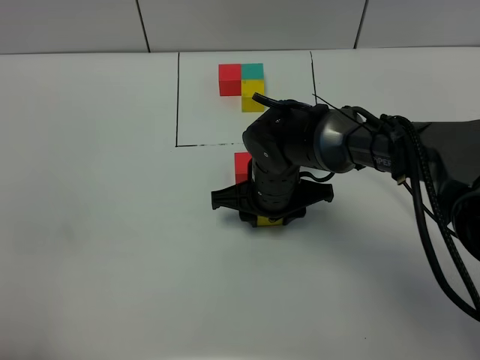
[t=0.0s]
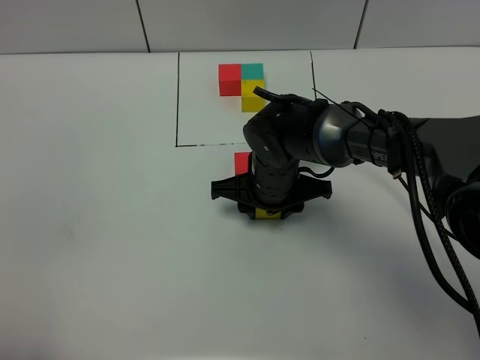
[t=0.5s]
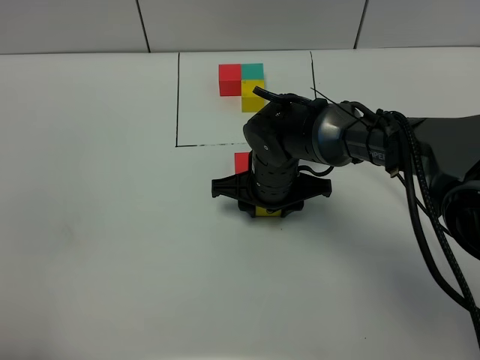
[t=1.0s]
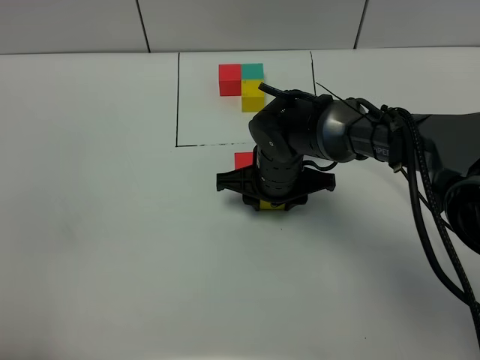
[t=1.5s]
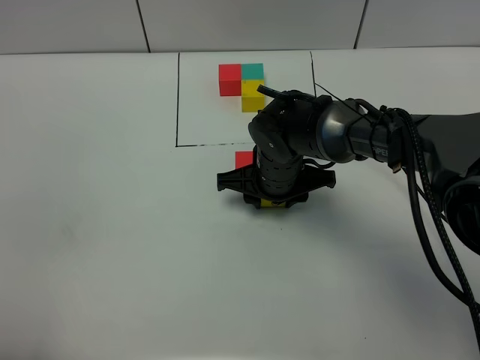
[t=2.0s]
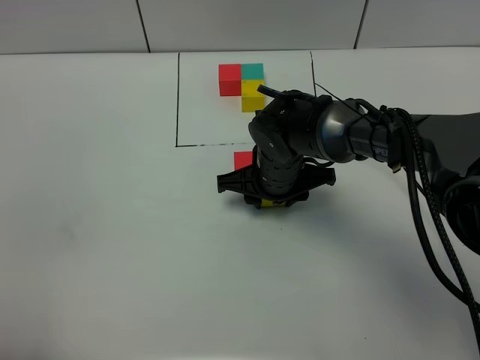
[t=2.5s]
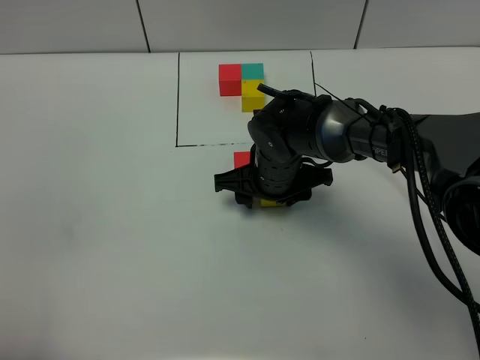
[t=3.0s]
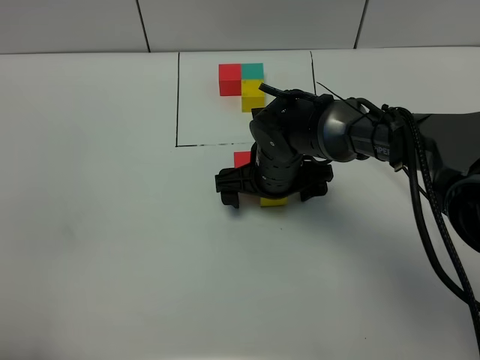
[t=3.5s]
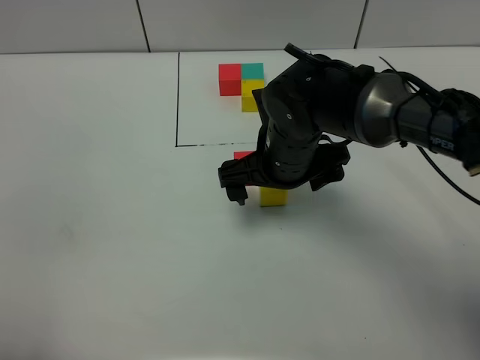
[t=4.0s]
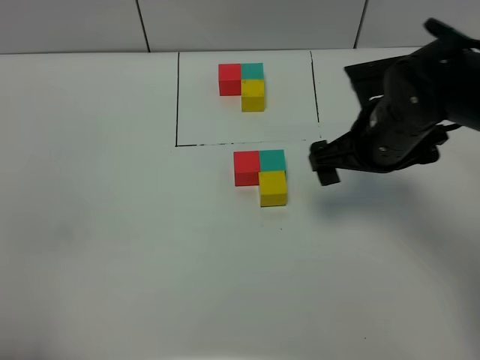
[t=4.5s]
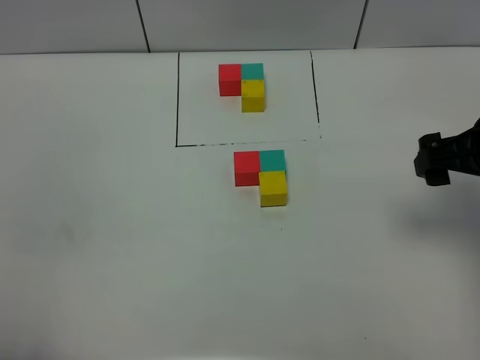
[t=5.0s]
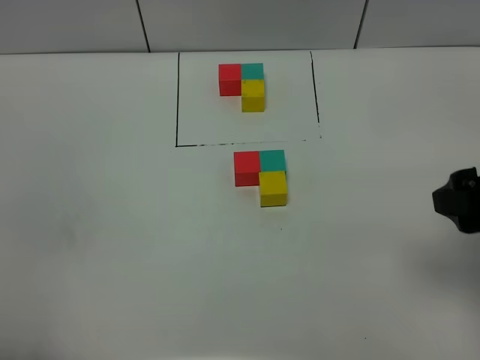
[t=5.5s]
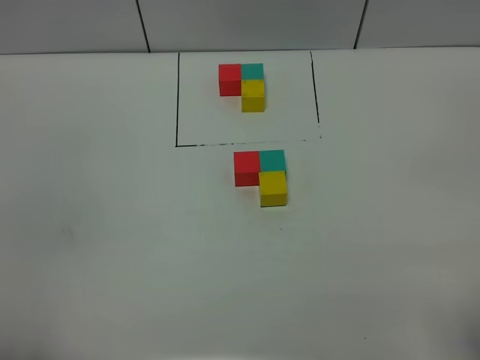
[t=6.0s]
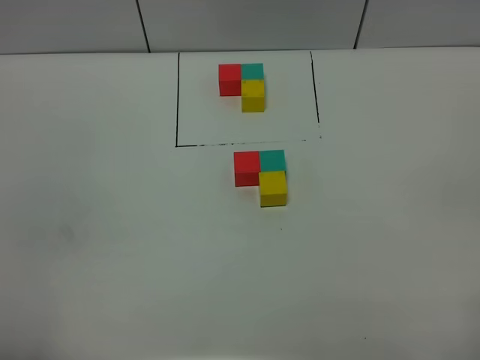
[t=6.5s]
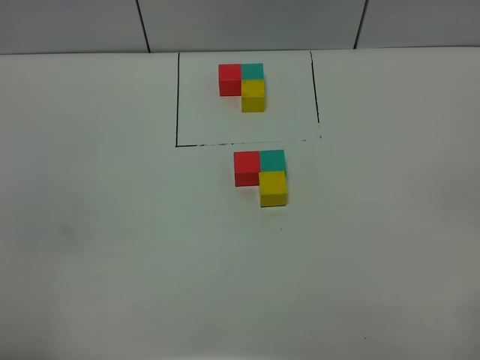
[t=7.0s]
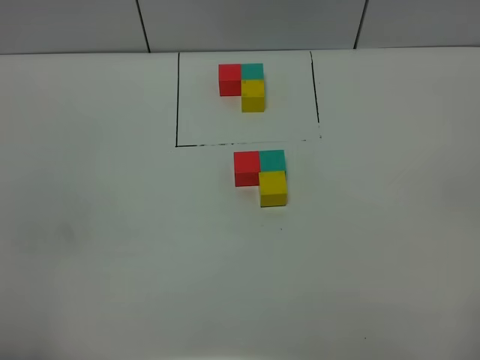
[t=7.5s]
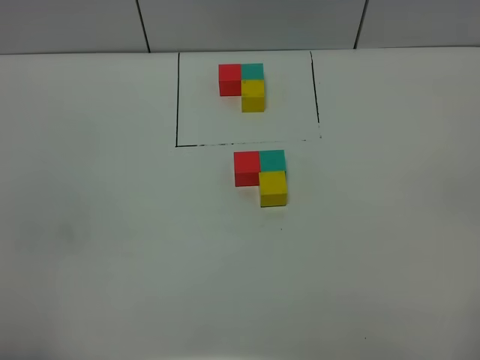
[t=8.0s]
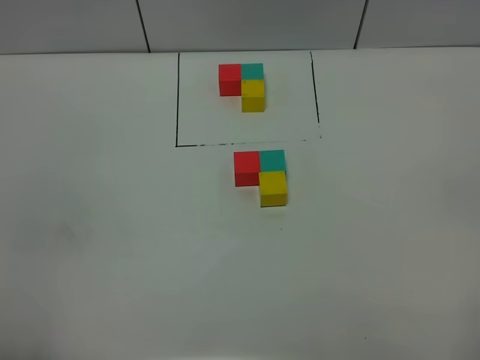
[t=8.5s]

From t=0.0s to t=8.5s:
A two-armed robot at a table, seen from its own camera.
Task of the whole recording: According to the building block template in front, assemble the scattered blocks together.
Step, from t=0.0s to t=3.0s: Put the yellow build block on the behind of the green build block.
From t=0.0s to t=2.0s: The grippers stay close to where they were, moving slightly.
From t=2.0s to t=4.0s: The right gripper travels upward by roughly 10 cm, and opens up.
From t=4.0s to t=6.5s: The right gripper goes approximately 40 cm backward and to the right.
From t=6.5s to t=8.5s: Both grippers stay about where they are.

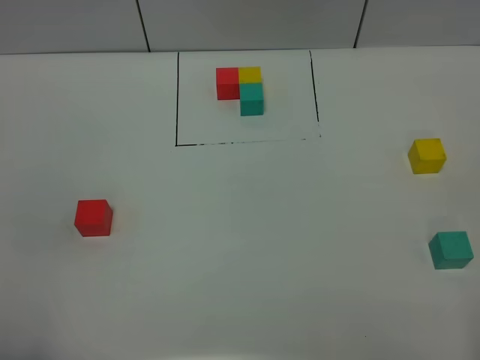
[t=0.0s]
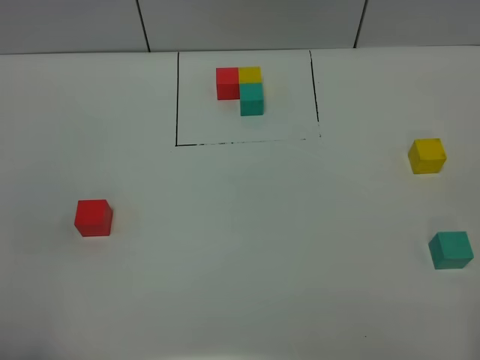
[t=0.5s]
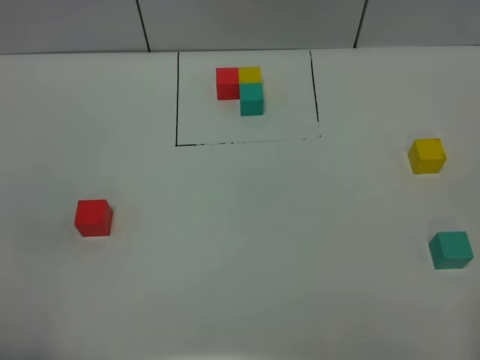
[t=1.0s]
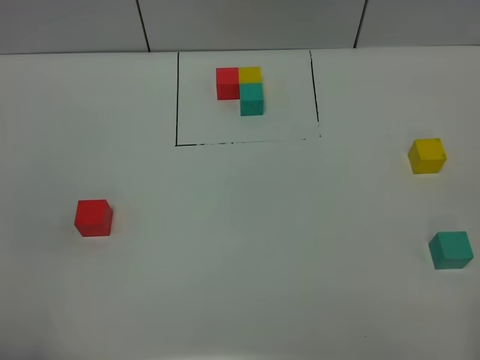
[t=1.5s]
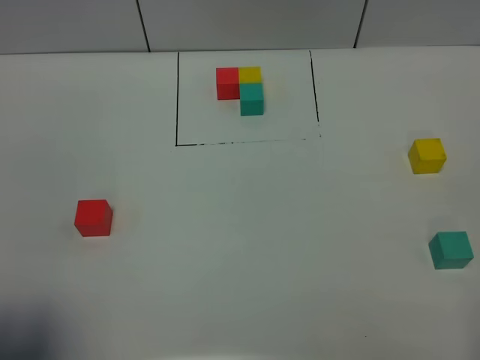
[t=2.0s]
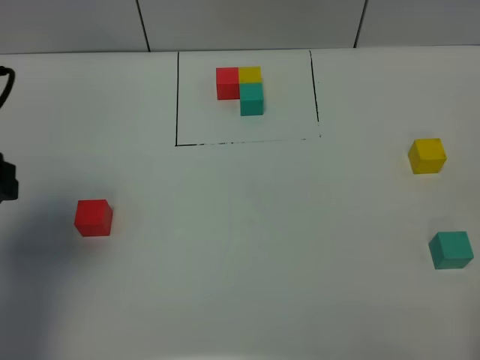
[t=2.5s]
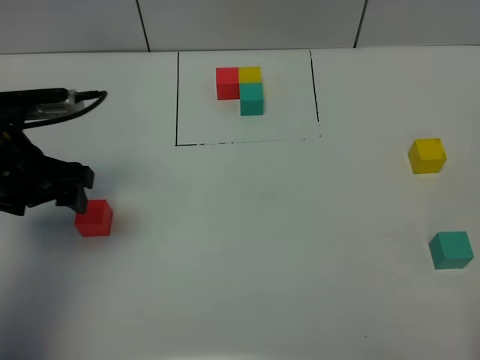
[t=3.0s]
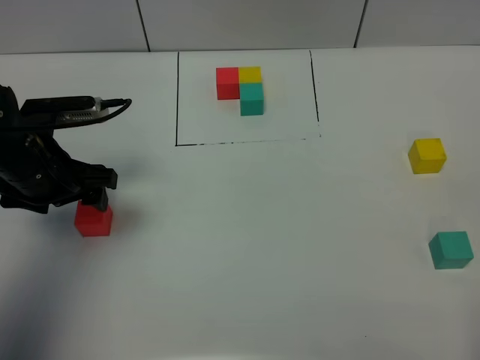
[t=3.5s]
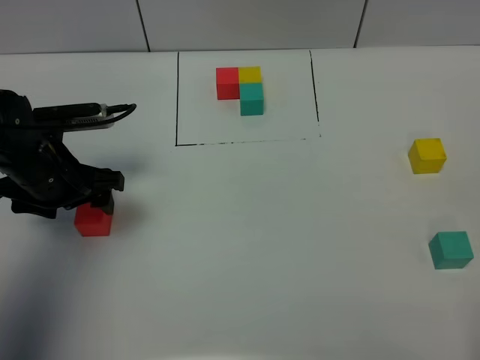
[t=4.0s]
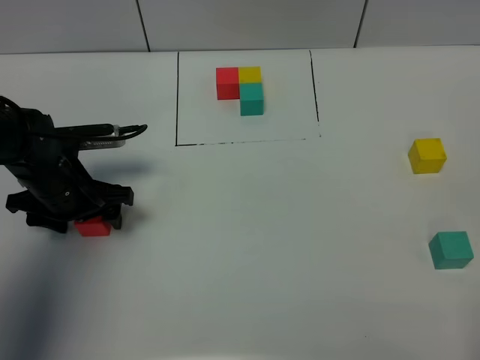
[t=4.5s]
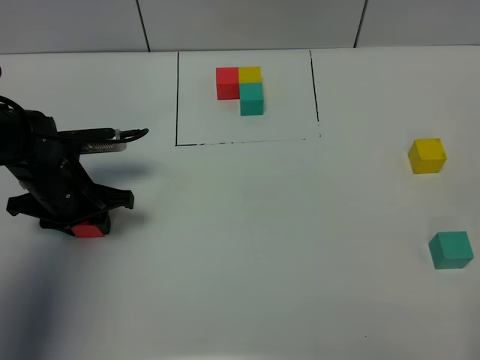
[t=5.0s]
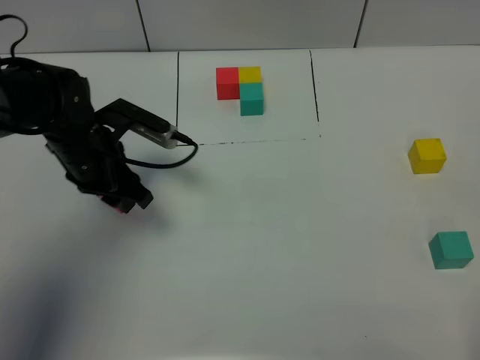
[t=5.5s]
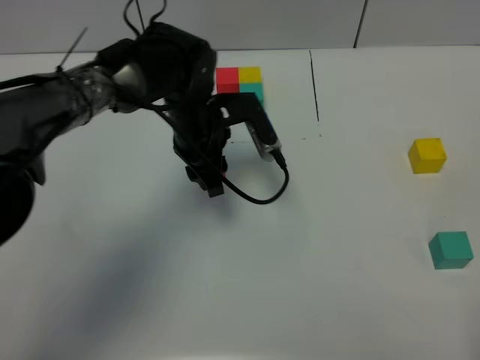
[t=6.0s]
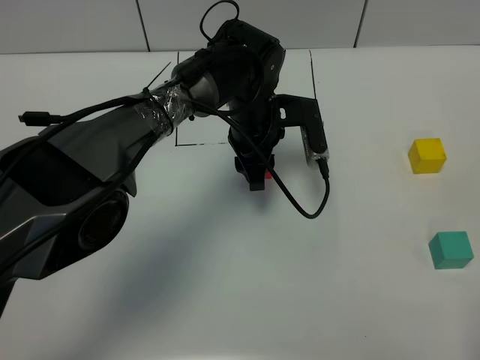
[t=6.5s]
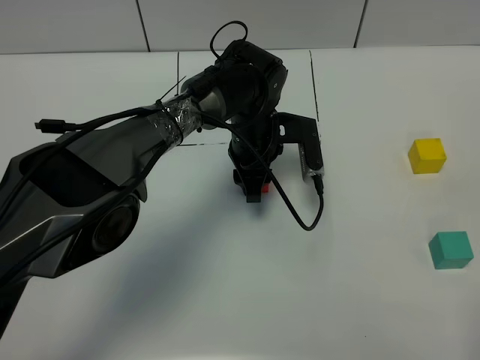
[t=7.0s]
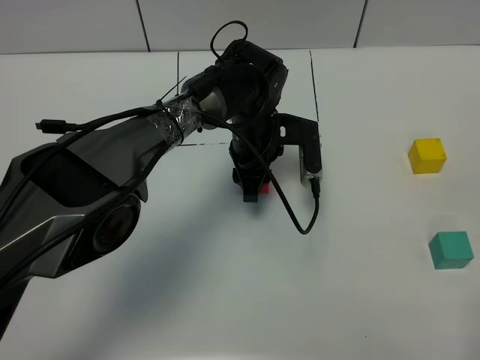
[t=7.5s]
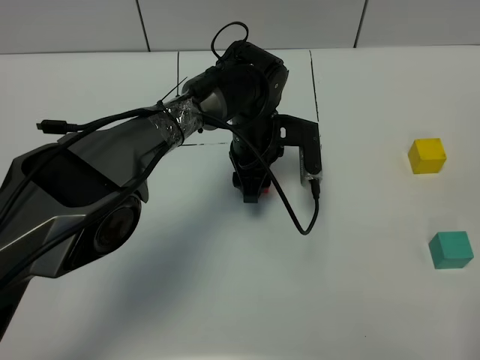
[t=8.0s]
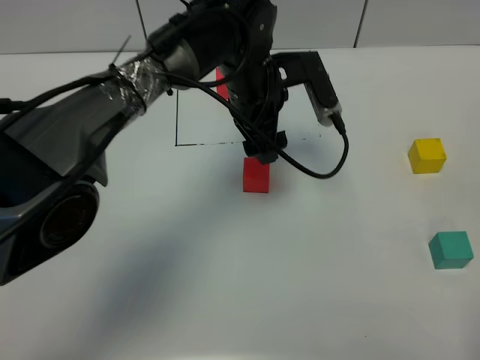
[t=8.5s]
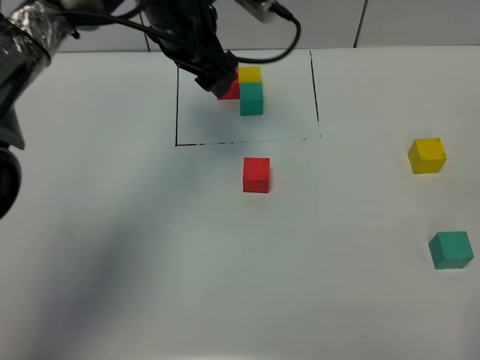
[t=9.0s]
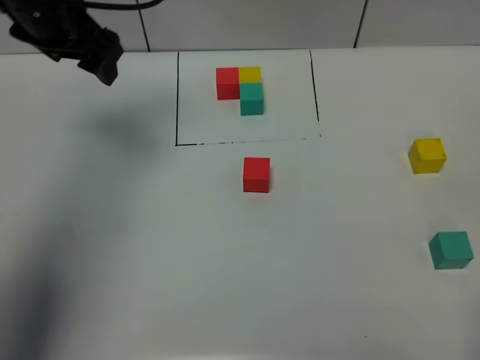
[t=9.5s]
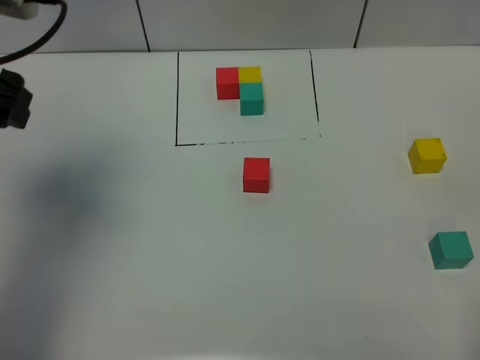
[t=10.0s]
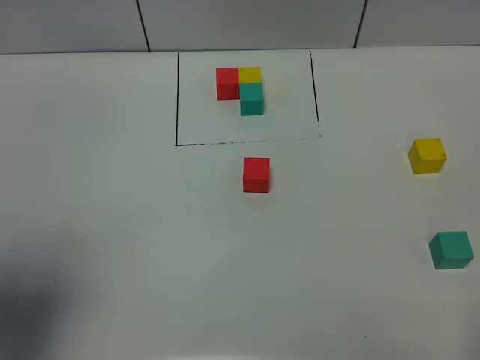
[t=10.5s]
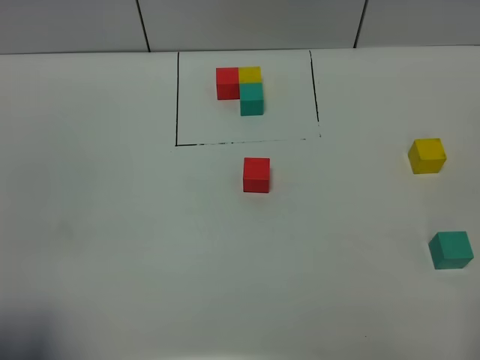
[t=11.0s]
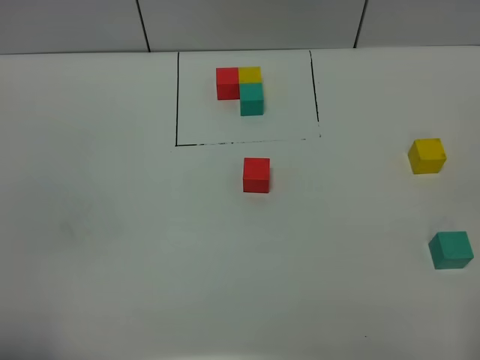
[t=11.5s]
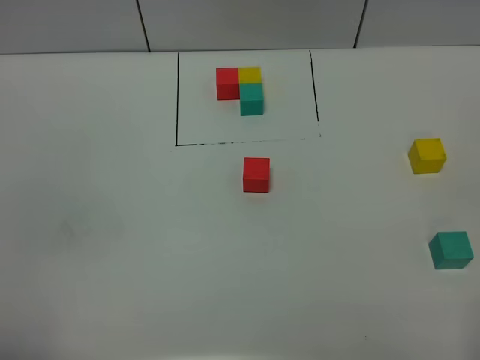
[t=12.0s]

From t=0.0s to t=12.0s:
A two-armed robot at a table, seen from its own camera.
Task of the whole recording: According to the building block template in front, assemble the scattered blocks together.
Step, from t=0.0s to t=8.0s: Put the red build block in the center of the table.
From t=0.0s to t=2.0s: The left gripper shifts roughly 5 cm forward.
From t=2.0s to t=4.0s: The left gripper moves forward and downward, approximately 30 cm.
From t=4.0s to t=6.0s: The left gripper heads to the right and forward, covering approximately 20 cm, and closes.
From t=6.0s to t=8.0s: The left gripper goes some 5 cm to the right, and opens up.
From t=8.0s to t=10.0s: The left gripper travels to the left, upward and backward by about 40 cm, and opens its fingers.
From t=10.0s to t=12.0s: The left gripper shifts some 30 cm backward.

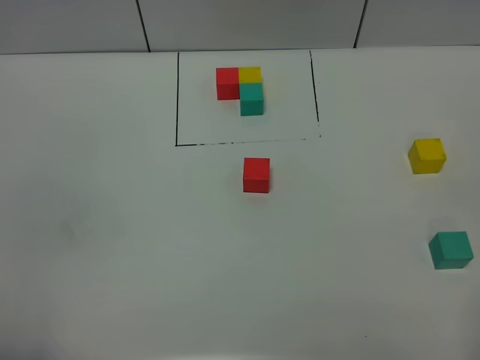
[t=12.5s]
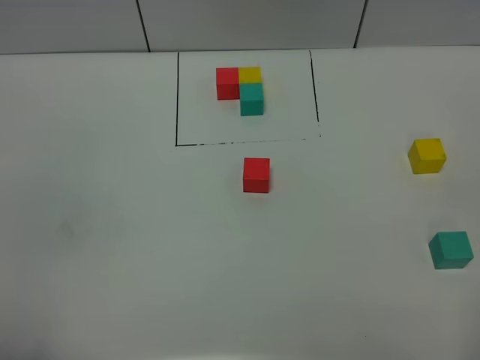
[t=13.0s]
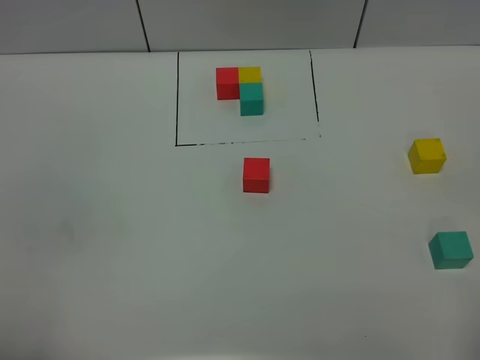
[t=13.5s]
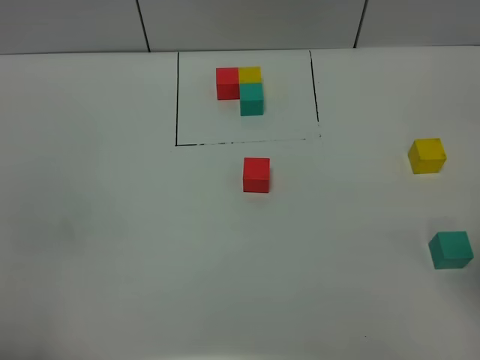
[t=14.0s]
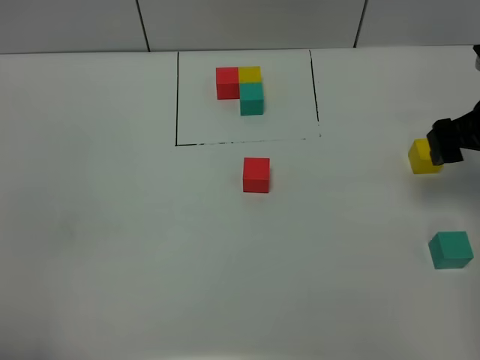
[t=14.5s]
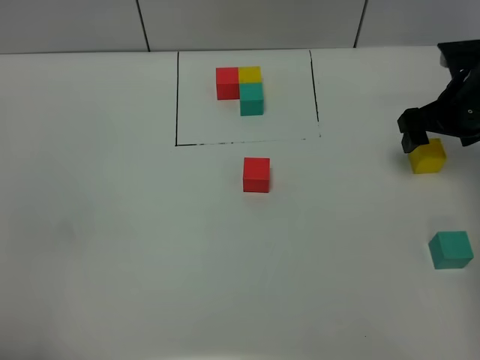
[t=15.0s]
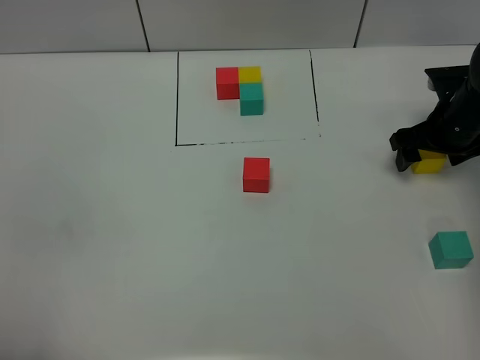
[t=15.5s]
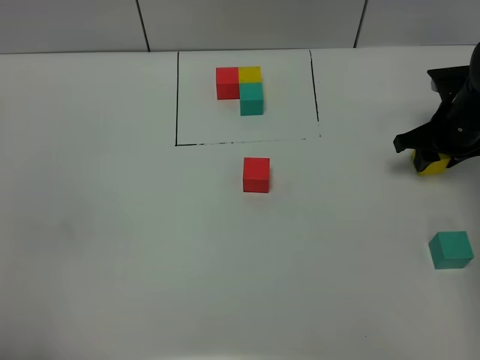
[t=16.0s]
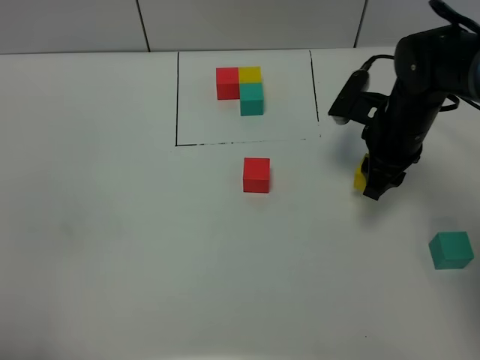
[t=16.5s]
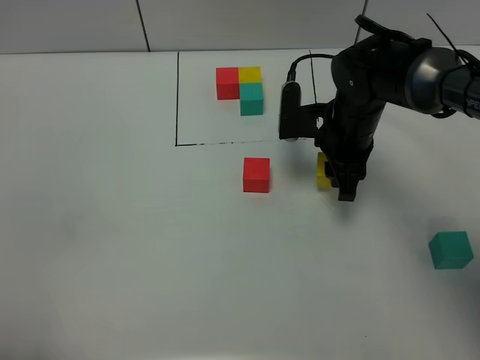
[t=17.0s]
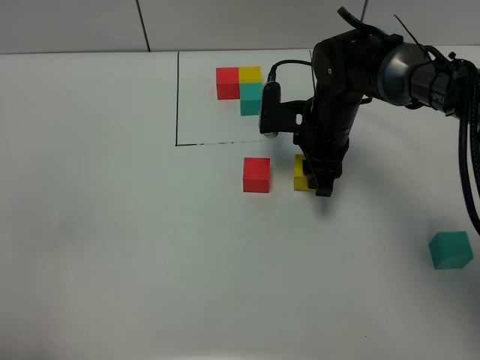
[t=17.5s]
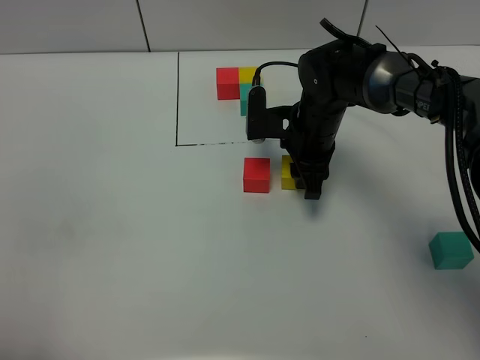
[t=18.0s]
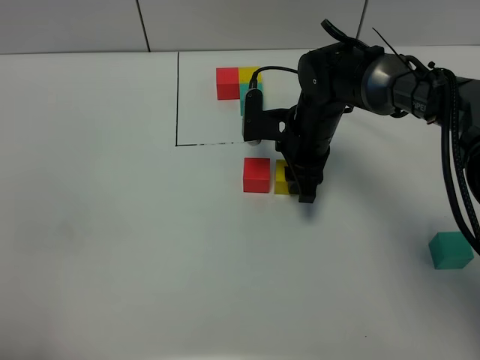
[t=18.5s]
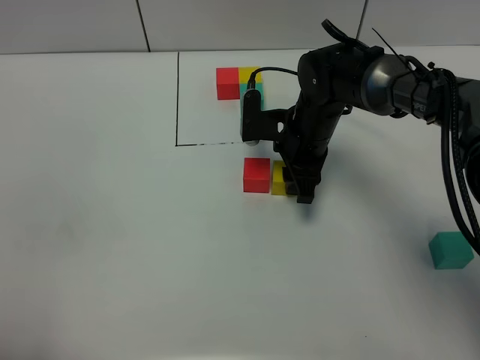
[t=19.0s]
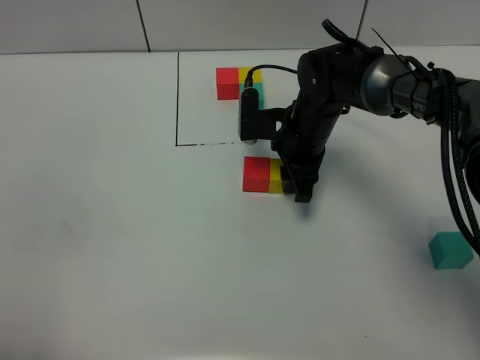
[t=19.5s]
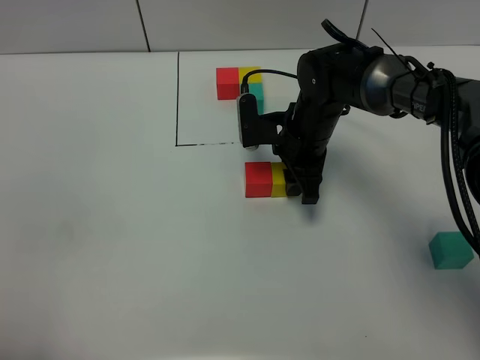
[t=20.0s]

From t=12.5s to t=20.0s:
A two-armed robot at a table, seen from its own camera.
Task of the whole recording: According to the building block template in front, assemble the scattered blocks together.
From t=12.5s to t=14.5s: The right gripper is displaced forward by approximately 35 cm.
From t=14.5s to t=16.5s: The right gripper heads to the left and downward, covering roughly 10 cm, and closes up.
From t=16.5s to t=18.0s: The right gripper shifts approximately 10 cm to the left.
From t=18.0s to t=20.0s: There are only small adjustments of the grippers.
